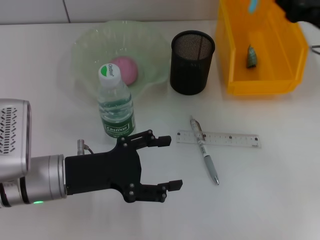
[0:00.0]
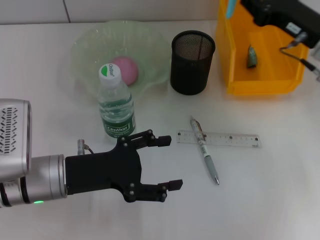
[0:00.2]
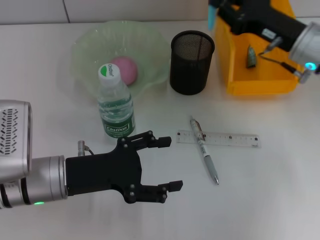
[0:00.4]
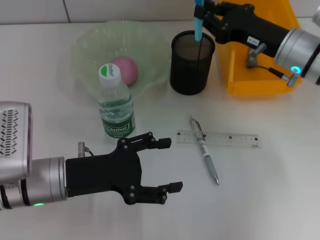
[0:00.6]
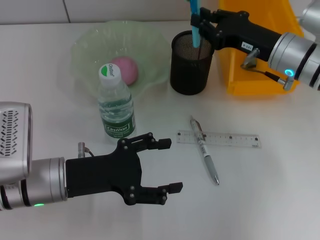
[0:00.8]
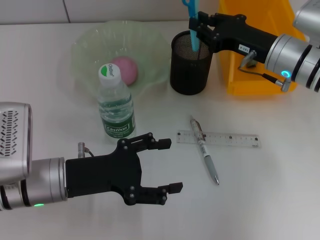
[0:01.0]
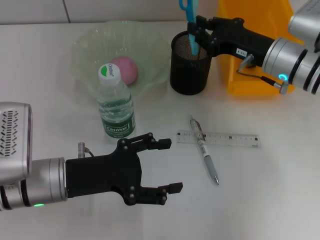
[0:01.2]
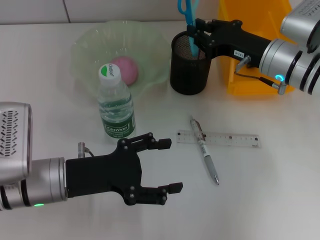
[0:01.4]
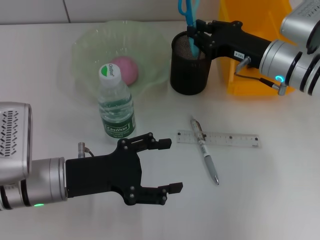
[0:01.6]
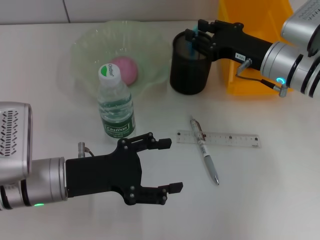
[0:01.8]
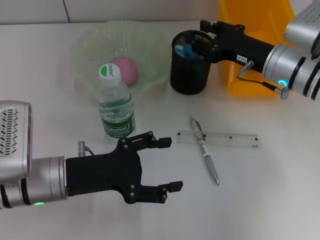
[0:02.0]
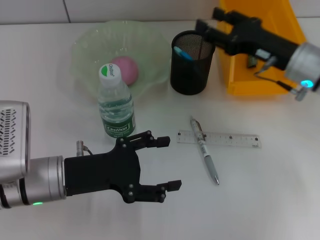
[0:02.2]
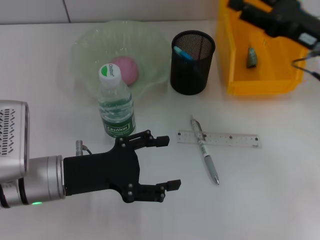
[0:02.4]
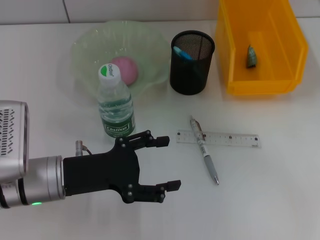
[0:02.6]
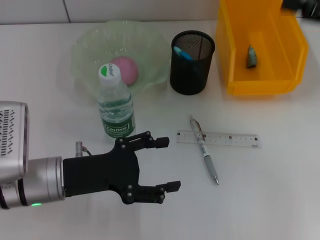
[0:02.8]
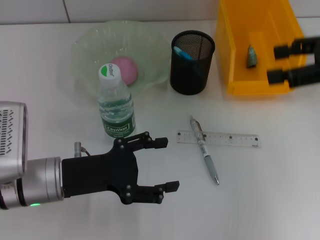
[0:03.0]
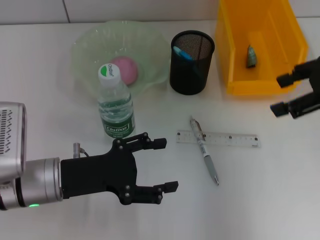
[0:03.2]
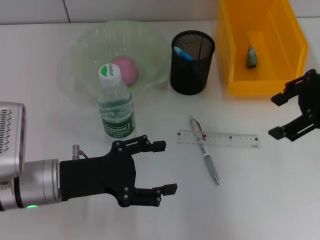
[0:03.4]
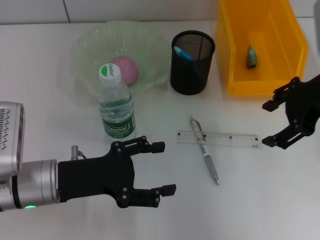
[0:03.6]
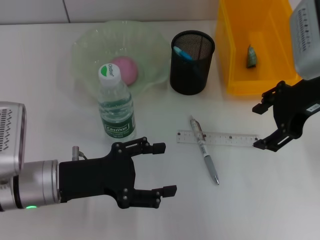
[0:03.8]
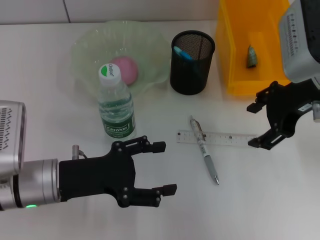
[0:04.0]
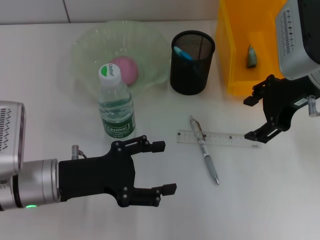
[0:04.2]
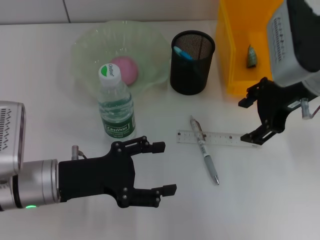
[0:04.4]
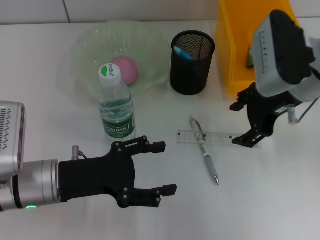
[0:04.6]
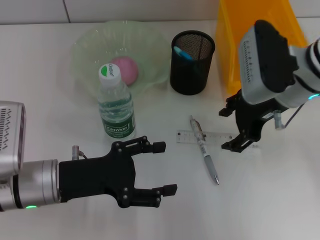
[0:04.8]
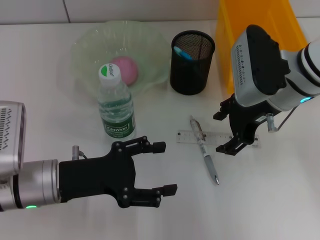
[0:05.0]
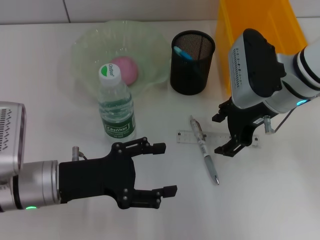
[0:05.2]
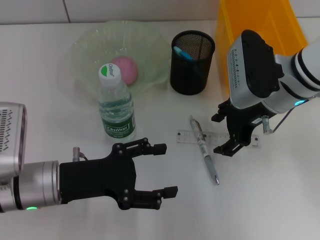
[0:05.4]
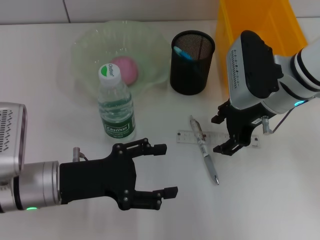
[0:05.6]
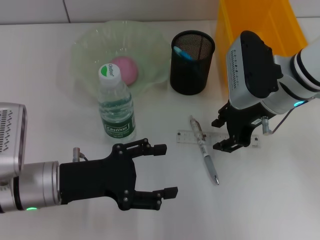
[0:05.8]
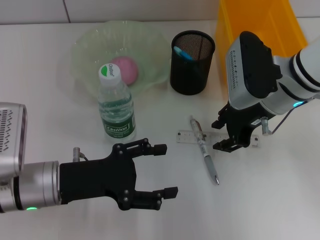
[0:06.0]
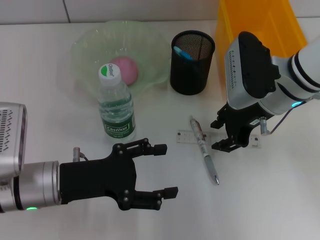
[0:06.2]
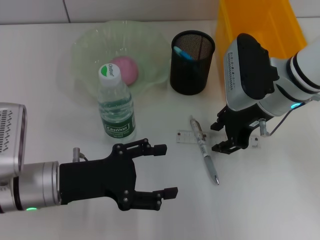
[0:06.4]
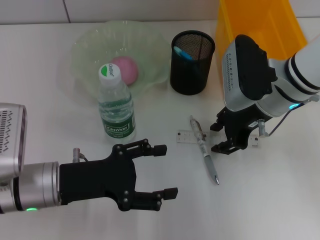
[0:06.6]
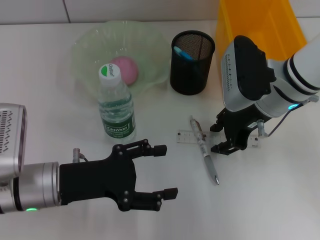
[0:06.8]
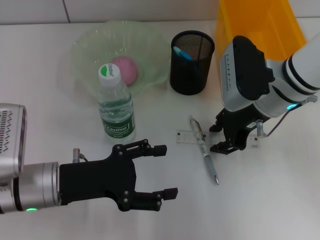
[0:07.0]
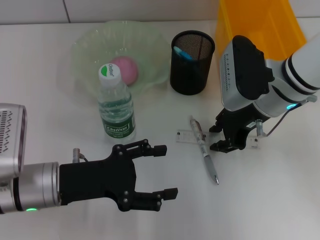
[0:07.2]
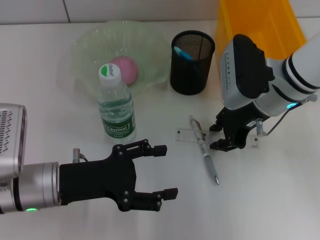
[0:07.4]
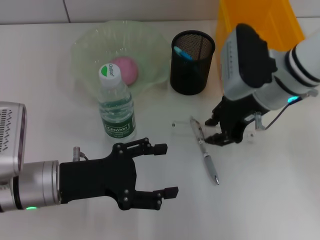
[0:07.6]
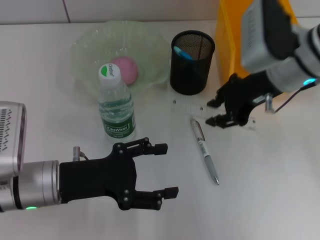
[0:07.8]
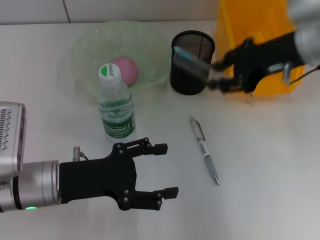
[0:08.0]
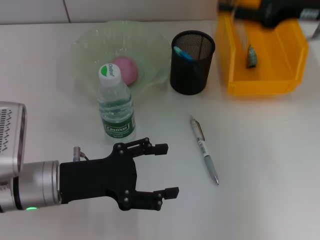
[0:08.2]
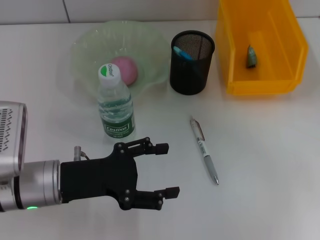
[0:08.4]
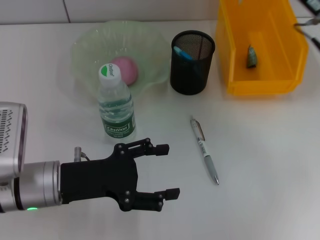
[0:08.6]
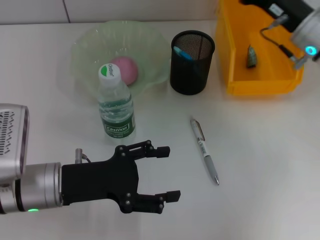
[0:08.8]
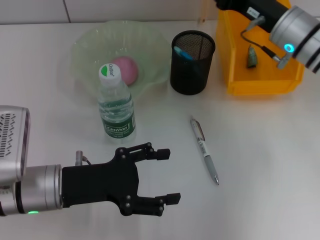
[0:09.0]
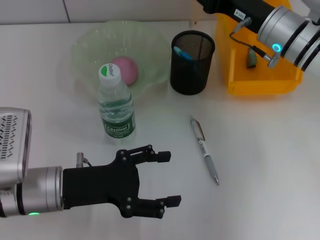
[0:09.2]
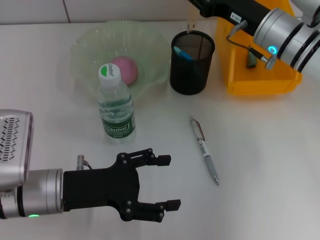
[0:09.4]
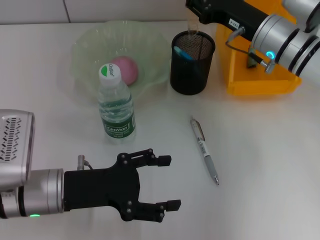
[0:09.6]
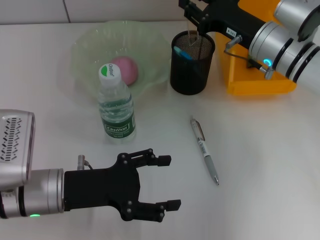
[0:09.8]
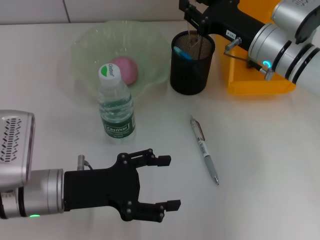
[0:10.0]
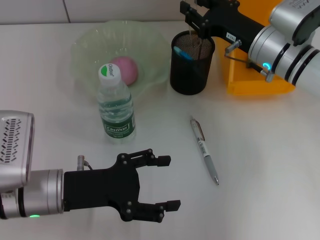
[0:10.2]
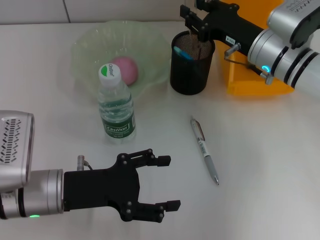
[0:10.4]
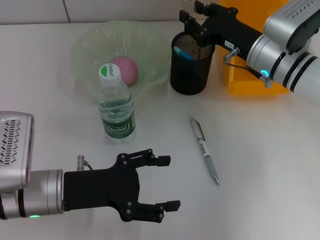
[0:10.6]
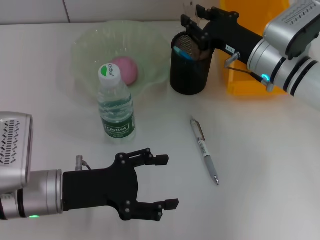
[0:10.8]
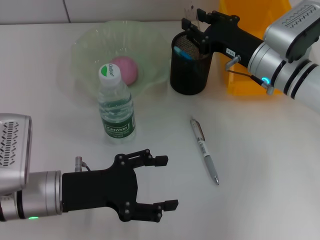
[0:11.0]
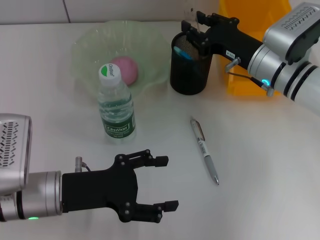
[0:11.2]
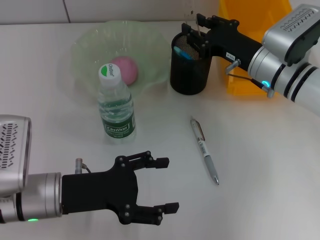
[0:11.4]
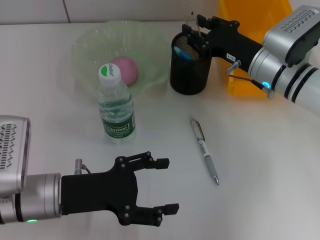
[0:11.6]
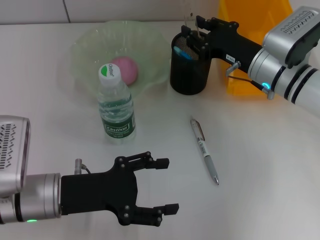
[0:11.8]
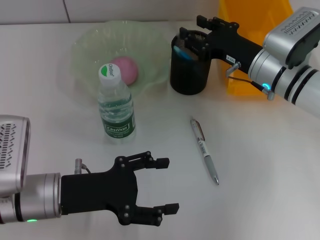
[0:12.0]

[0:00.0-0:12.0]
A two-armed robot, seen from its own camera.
Step, 0:00.0 to 0:02.0: Place the blue scissors into the pen holder with the right hand.
Step, 0:02.2 to 0:07.2: Grab the ruler with the right hand.
0:00.0 to 0:01.6: The right gripper travels to the left and downward by some 10 cm.
0:01.6 to 0:03.0: The right gripper heads upward, to the right and backward, covering approximately 20 cm, and opens its fingers.
0:03.0 to 0:04.4: The right gripper heads to the left, covering about 10 cm.
0:04.4 to 0:06.0: The right gripper goes approximately 5 cm downward, and closes.
0:06.0 to 0:07.6: Both grippers stay about where they are.
0:07.6 to 0:09.0: The right gripper travels to the right and back again, roughly 10 cm each way.
0:09.0 to 0:12.0: The grippers make only small movements.

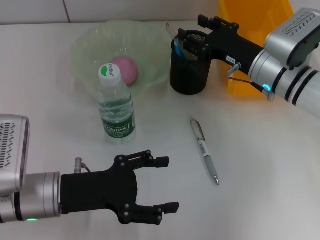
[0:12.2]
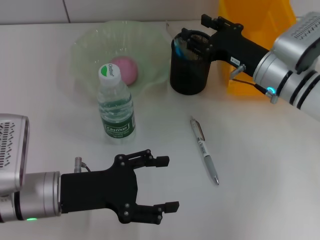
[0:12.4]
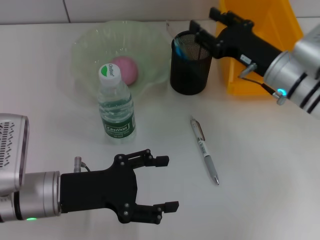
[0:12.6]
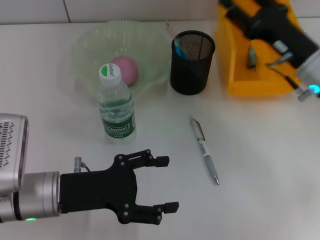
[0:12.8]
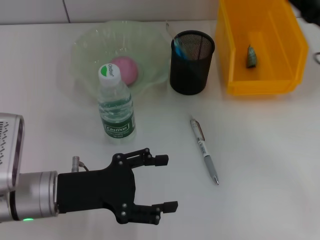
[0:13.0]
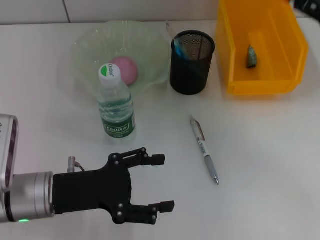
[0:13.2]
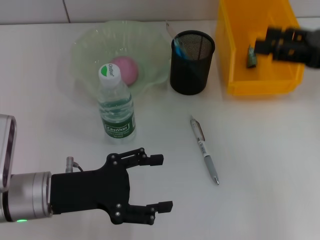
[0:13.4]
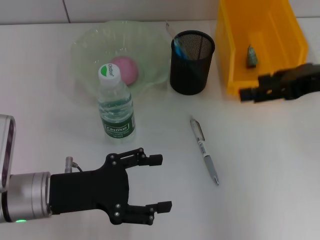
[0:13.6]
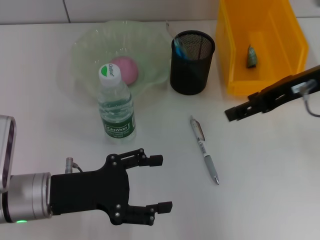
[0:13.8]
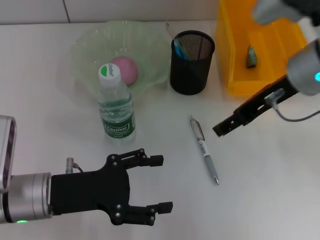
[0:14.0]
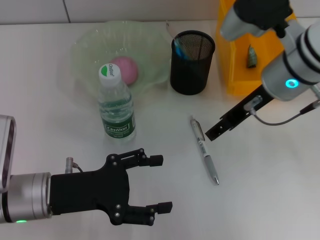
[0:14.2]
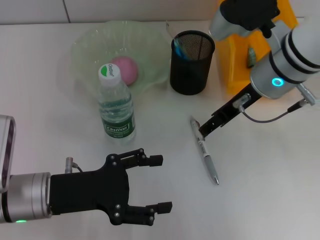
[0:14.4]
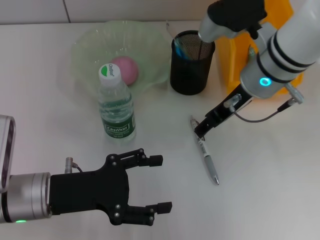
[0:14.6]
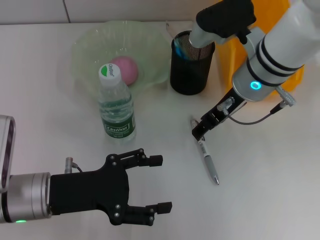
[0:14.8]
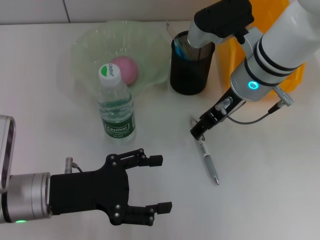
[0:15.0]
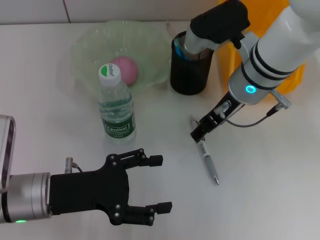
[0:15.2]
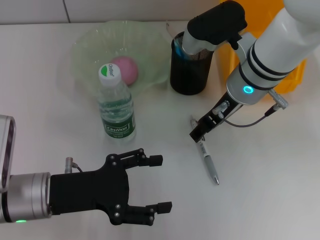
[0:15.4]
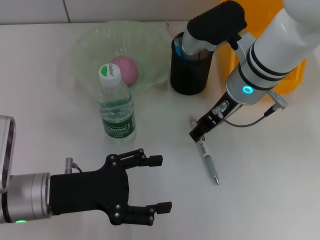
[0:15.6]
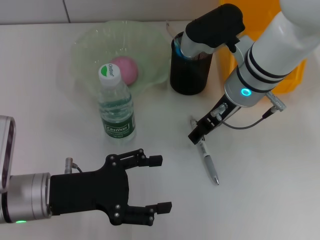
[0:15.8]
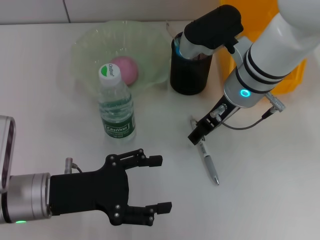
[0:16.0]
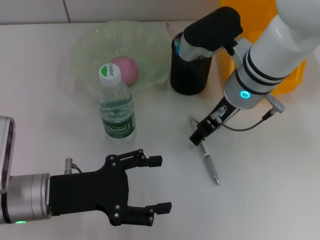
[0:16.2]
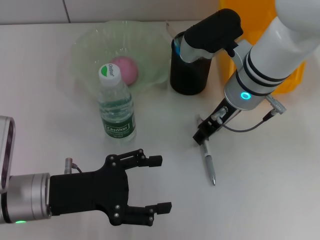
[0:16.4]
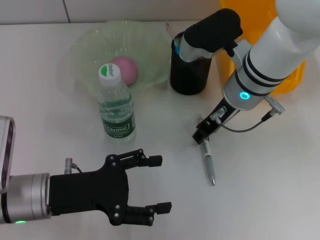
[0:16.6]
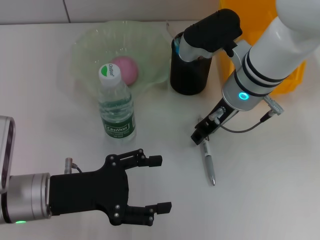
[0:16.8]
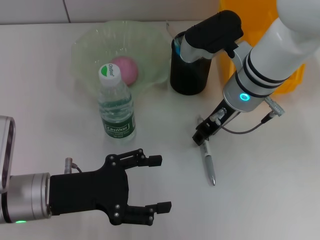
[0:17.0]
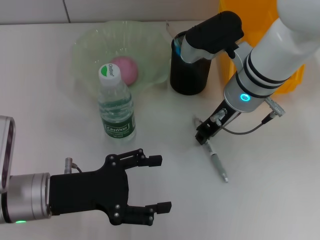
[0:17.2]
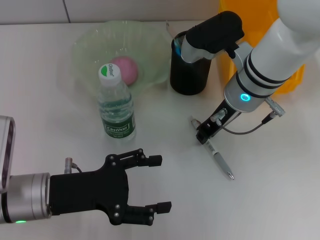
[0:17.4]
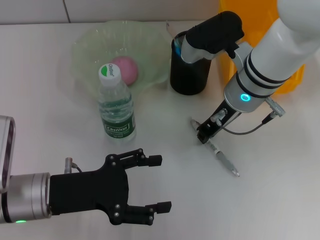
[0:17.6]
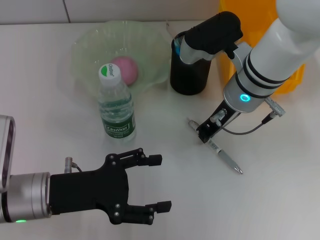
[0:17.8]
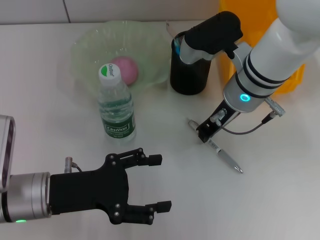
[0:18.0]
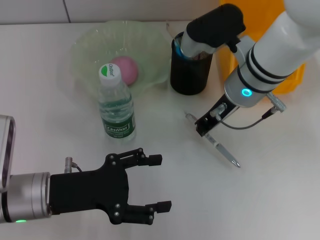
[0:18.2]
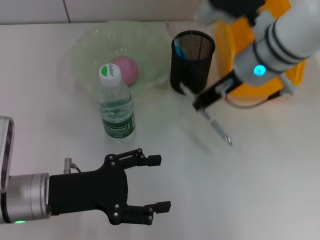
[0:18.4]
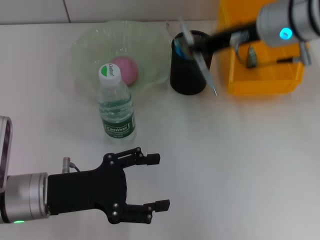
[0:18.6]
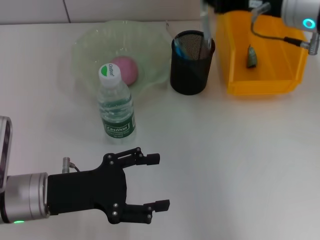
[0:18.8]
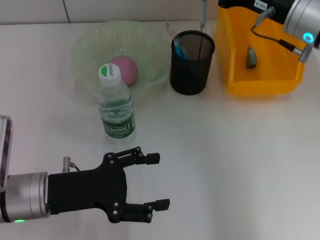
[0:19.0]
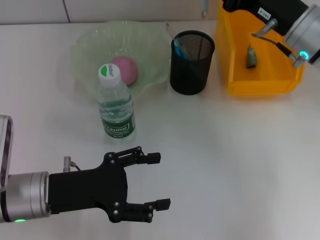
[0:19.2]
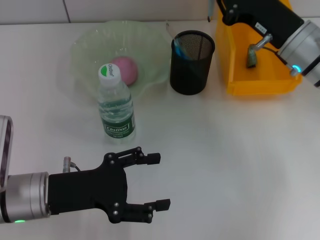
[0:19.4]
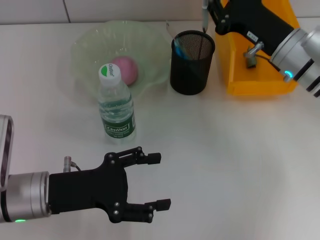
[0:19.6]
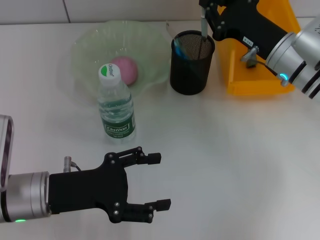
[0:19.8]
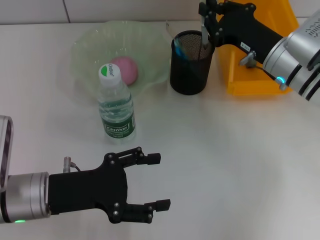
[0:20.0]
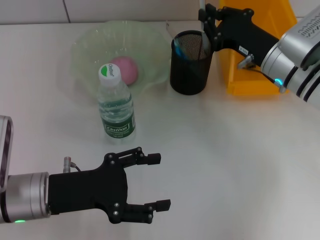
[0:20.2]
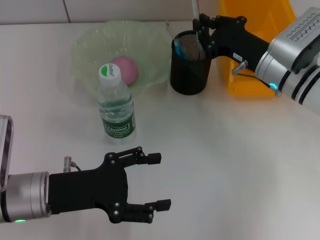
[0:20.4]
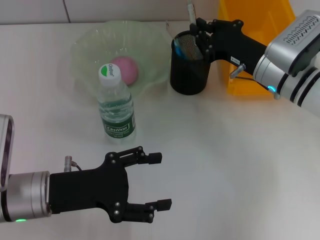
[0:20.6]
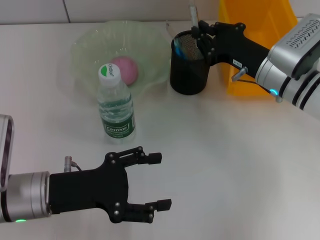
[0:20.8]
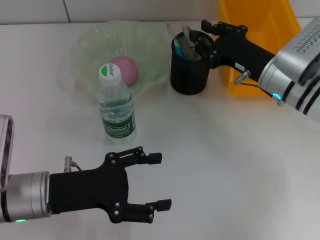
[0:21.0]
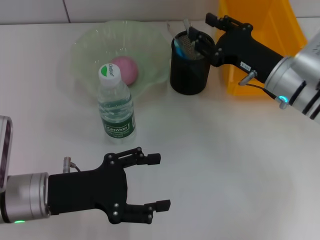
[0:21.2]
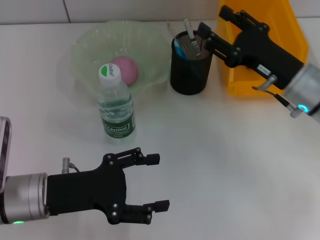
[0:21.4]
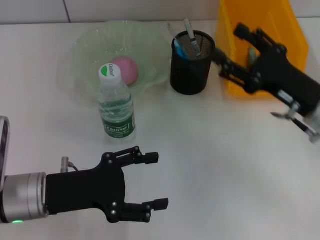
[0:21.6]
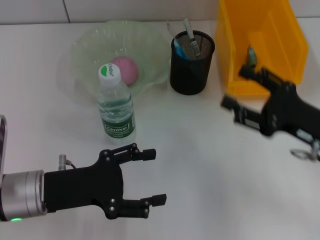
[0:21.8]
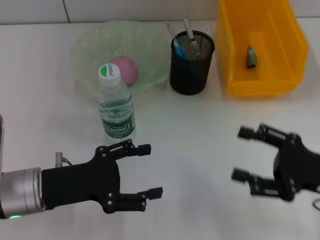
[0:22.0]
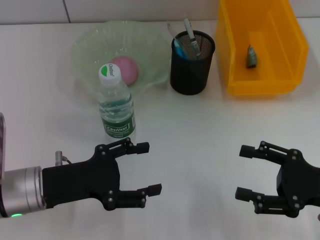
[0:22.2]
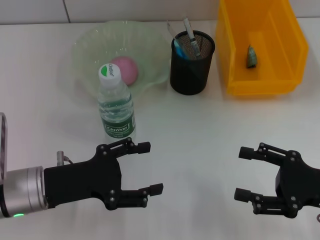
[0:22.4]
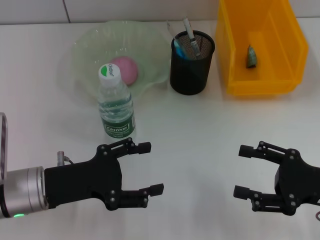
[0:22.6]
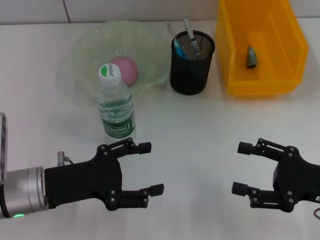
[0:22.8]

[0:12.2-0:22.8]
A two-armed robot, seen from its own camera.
Step, 0:12.6 to 0:17.8: Grab the gray spring-action pen with the right hand.
Step, 0:18.0 to 0:21.2: Place the gray spring-action pen into the pen holder with the right hand.
0:12.2 to 0:13.8: The right gripper shifts approximately 15 cm upward and backward.
0:13.8 to 0:15.2: The right gripper shifts about 15 cm to the left and downward.
0:15.2 to 0:16.8: The right gripper closes its fingers.
0:16.8 to 0:18.2: The right gripper closes up.
0:18.2 to 0:19.8: The right gripper goes about 10 cm to the right.
0:19.8 to 0:21.2: The grippers make only small movements.
0:21.2 to 0:22.8: The right gripper shifts roughly 15 cm backward and to the right, and opens up.
